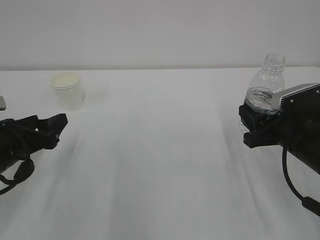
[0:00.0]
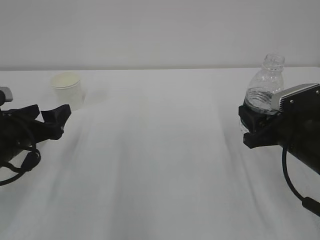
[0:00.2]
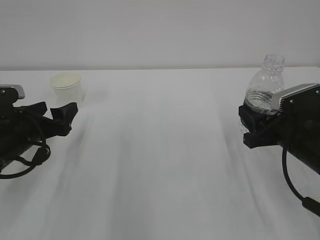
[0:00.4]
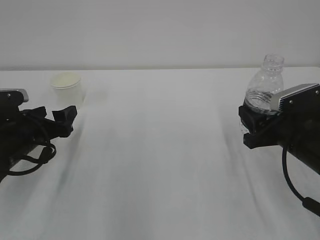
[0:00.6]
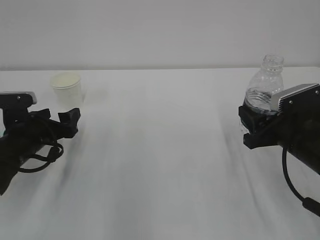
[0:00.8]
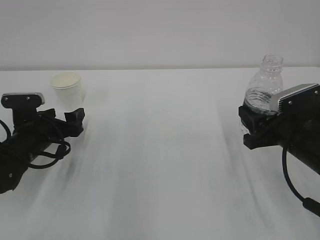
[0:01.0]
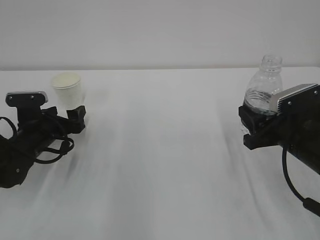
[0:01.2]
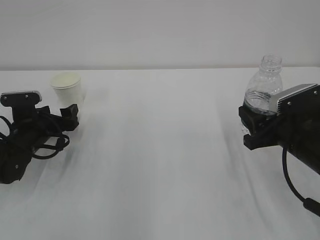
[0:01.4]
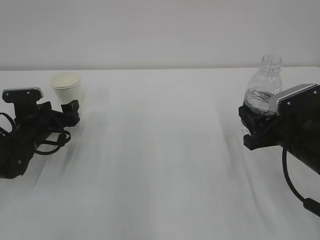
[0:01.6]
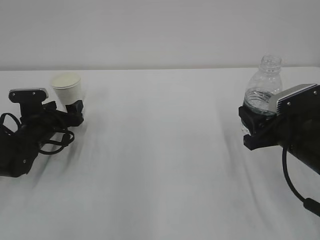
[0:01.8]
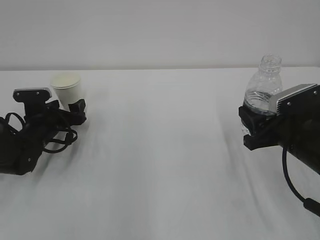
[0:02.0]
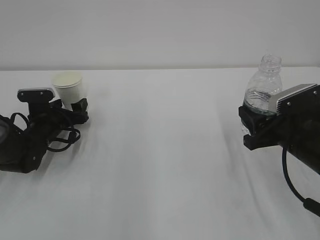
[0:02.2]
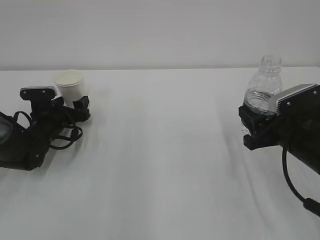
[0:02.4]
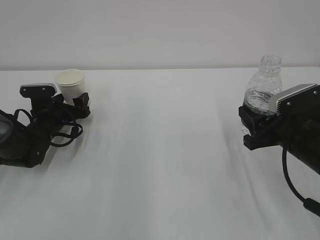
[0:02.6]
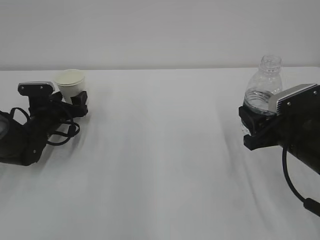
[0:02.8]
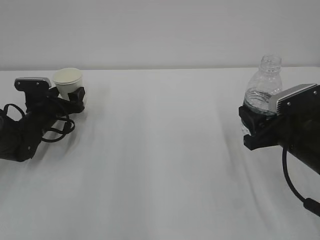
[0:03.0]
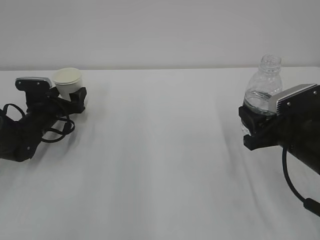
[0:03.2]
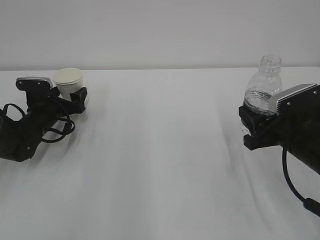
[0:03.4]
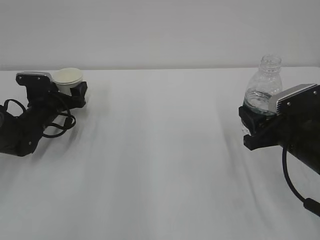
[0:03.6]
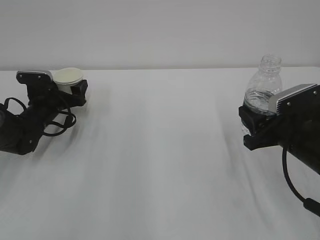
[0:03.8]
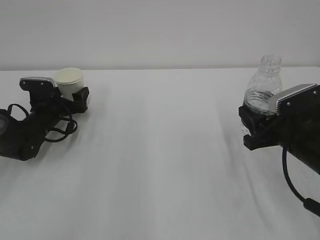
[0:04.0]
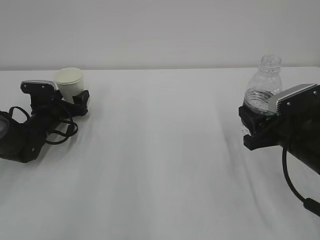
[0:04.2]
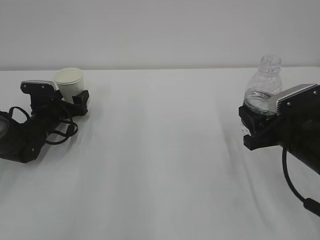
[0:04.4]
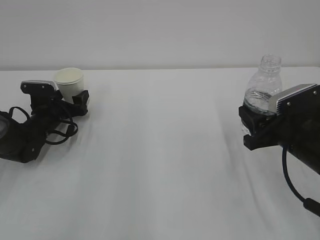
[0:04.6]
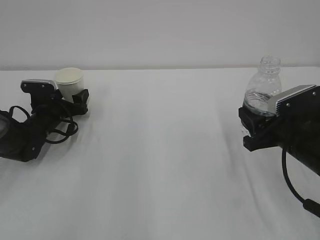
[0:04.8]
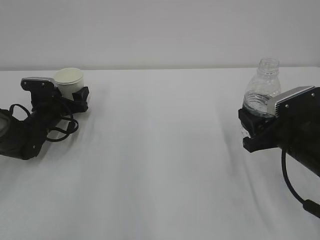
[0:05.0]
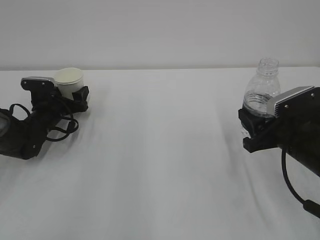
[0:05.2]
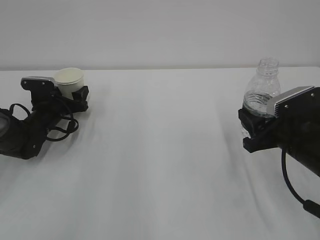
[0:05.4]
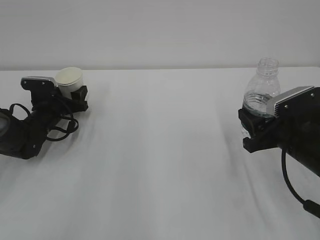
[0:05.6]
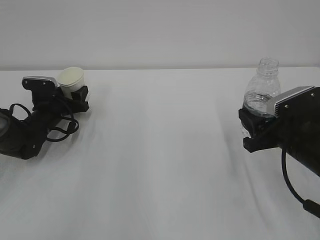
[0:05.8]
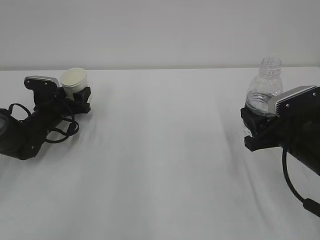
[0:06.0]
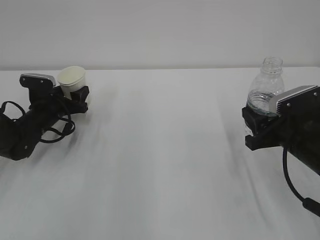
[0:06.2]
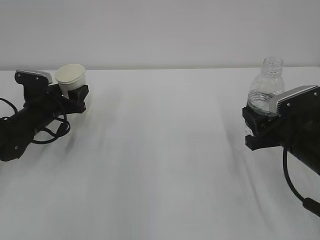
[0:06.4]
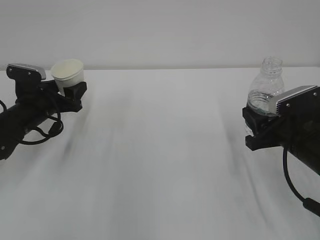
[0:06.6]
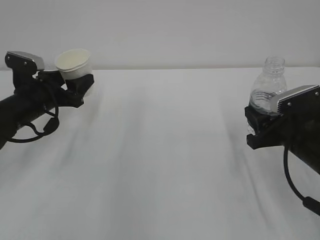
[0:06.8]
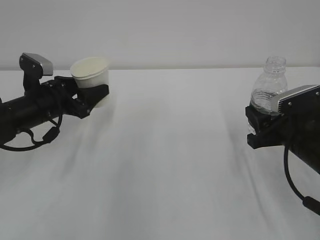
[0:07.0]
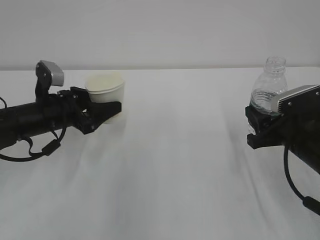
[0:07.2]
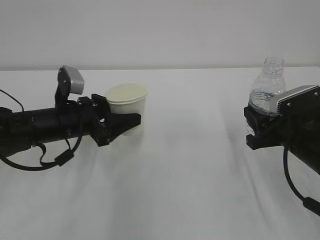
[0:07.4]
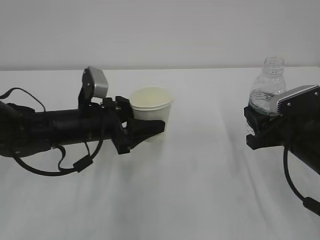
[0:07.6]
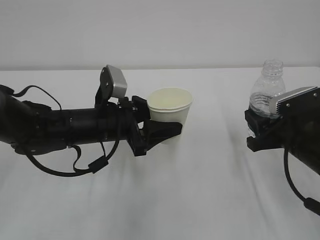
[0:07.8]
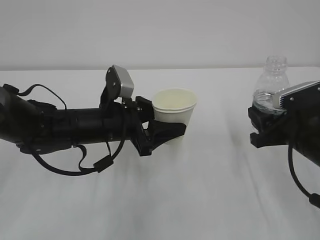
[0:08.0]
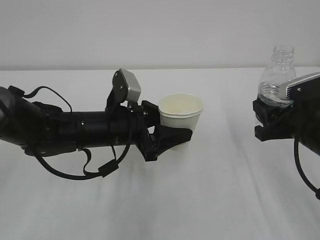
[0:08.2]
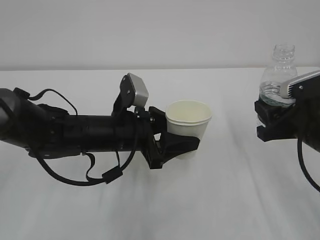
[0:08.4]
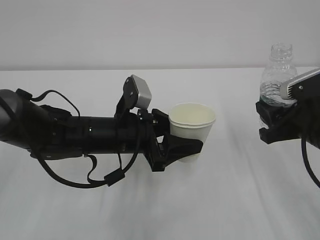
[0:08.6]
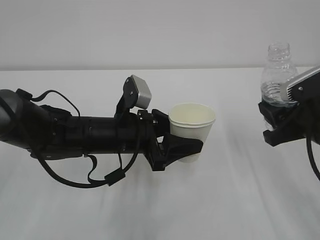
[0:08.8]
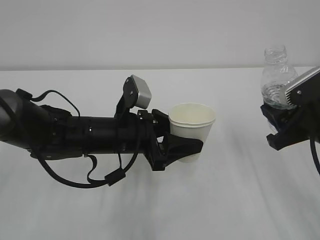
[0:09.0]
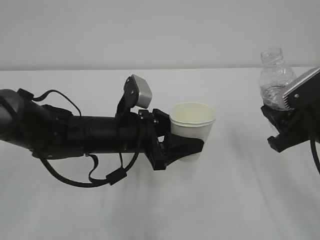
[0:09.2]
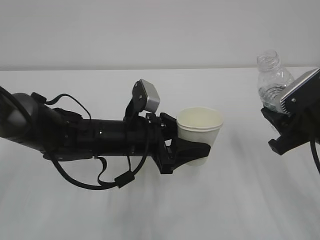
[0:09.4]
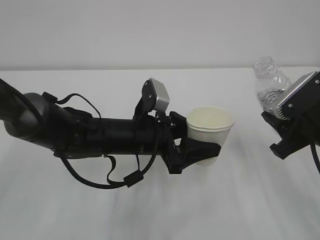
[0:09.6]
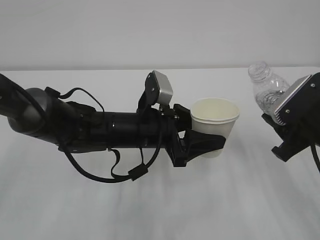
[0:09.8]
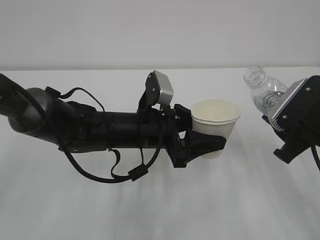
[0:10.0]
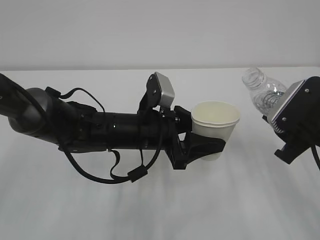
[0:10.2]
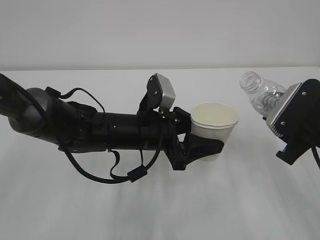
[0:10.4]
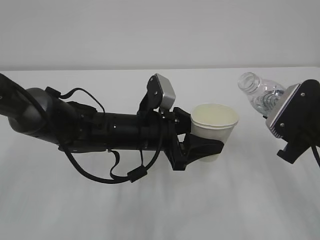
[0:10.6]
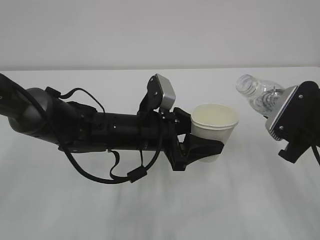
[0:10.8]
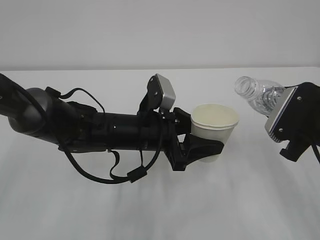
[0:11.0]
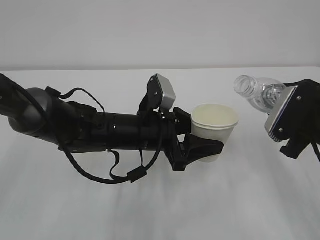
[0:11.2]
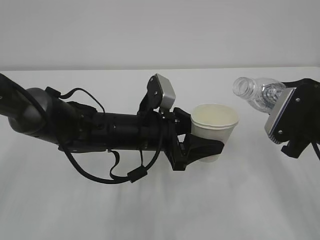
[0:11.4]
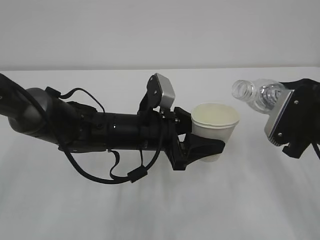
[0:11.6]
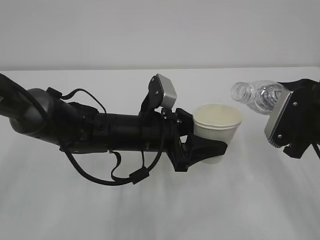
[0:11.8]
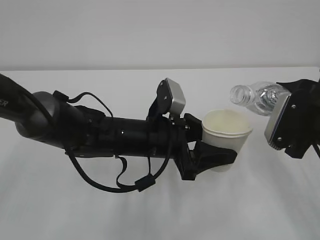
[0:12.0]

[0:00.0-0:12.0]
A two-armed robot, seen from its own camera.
0:00.0 to 0:01.6: The left gripper moves forward and downward, approximately 15 cm.
0:01.6 to 0:03.0: The left gripper moves forward, approximately 5 cm.
0:03.0 to 0:04.4: There are only small adjustments of the grippers.
0:04.4 to 0:06.0: The left gripper closes.
0:06.0 to 0:07.6: The left gripper shifts roughly 20 cm to the right, backward and upward.
0:07.6 to 0:09.0: The left gripper heads to the right, covering approximately 5 cm, while the right gripper moves upward, approximately 5 cm.

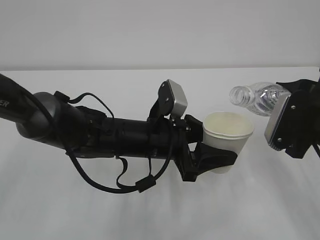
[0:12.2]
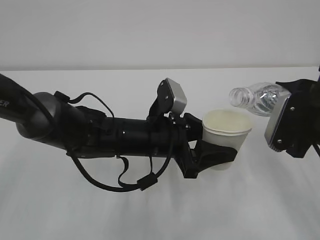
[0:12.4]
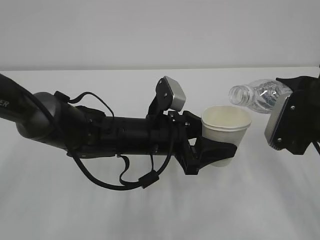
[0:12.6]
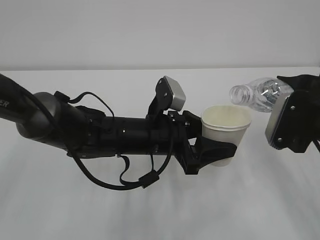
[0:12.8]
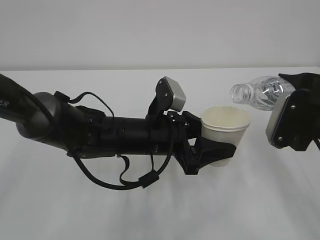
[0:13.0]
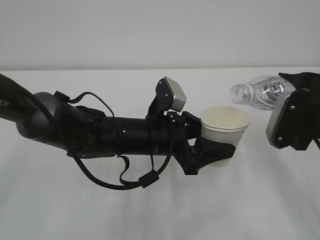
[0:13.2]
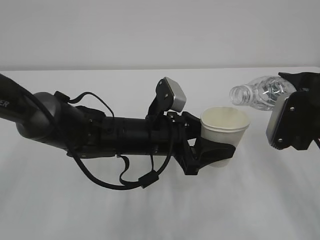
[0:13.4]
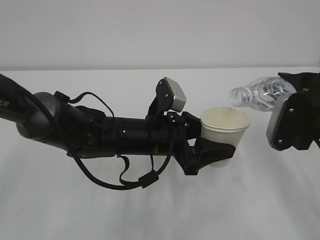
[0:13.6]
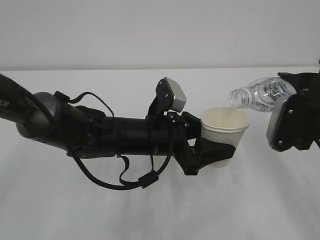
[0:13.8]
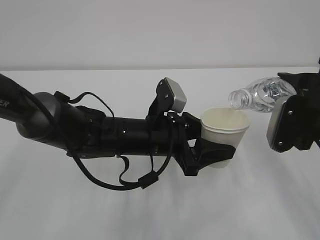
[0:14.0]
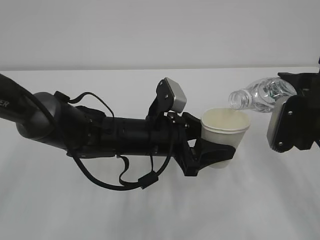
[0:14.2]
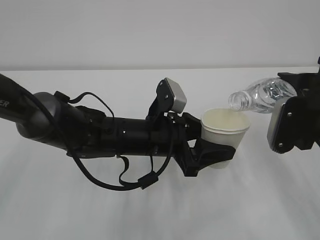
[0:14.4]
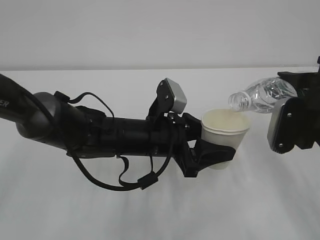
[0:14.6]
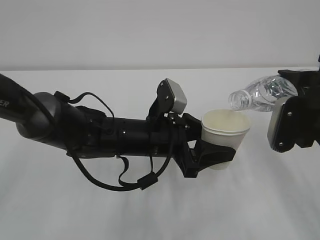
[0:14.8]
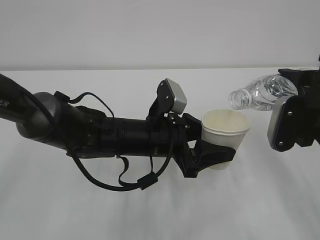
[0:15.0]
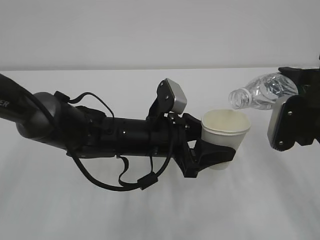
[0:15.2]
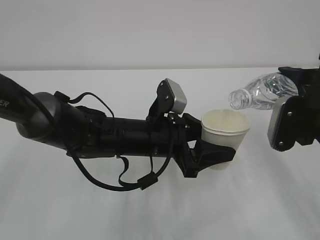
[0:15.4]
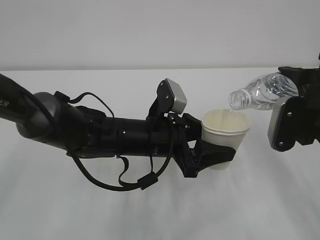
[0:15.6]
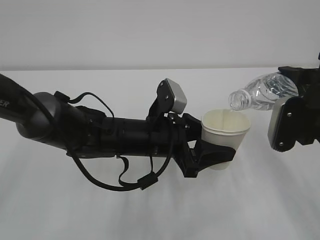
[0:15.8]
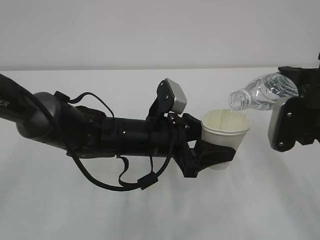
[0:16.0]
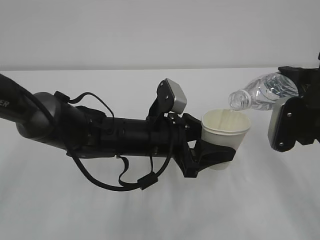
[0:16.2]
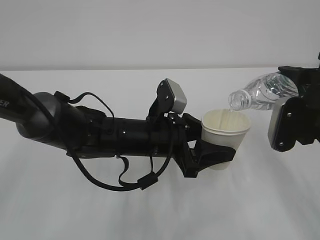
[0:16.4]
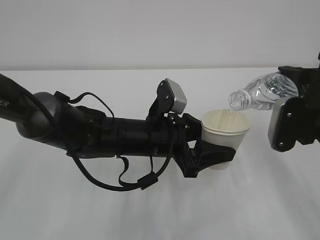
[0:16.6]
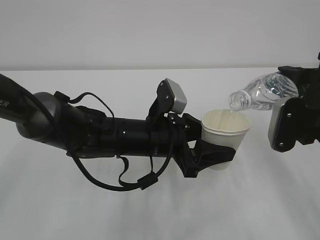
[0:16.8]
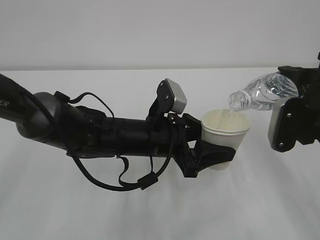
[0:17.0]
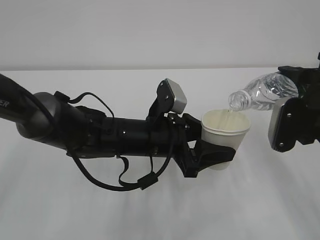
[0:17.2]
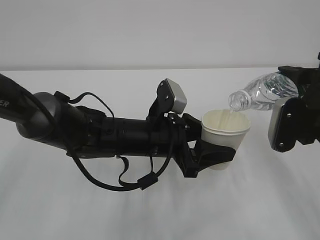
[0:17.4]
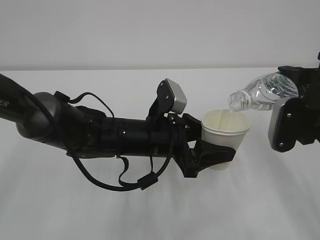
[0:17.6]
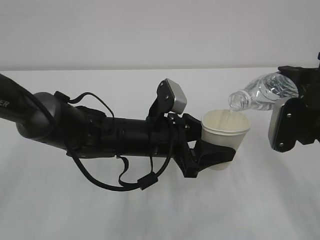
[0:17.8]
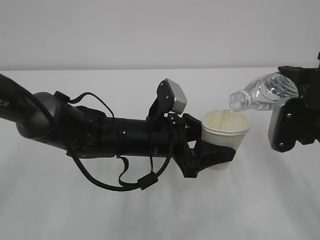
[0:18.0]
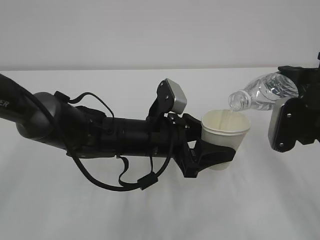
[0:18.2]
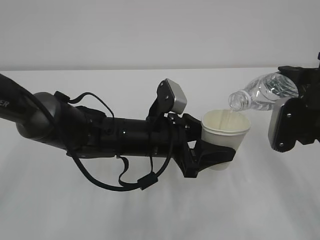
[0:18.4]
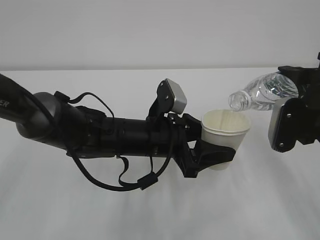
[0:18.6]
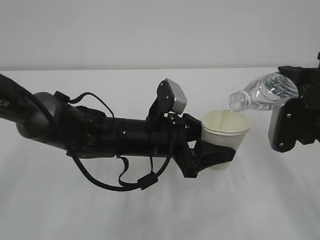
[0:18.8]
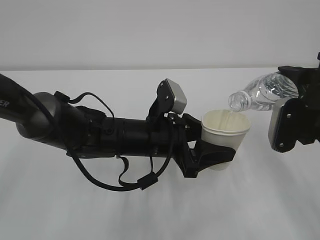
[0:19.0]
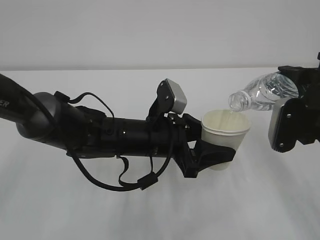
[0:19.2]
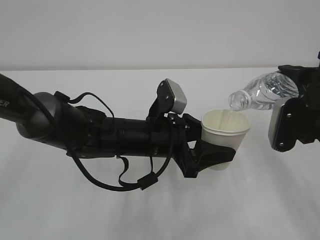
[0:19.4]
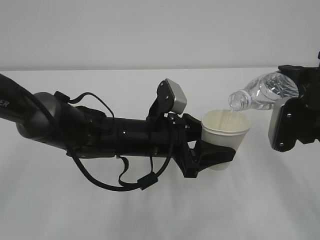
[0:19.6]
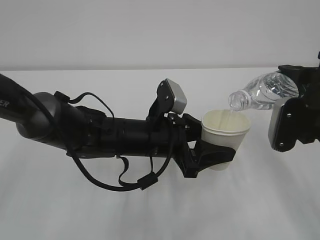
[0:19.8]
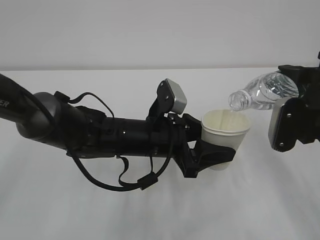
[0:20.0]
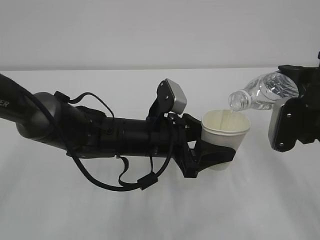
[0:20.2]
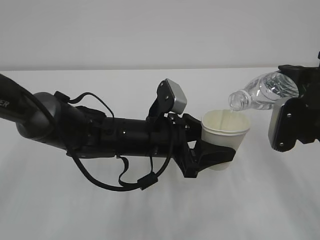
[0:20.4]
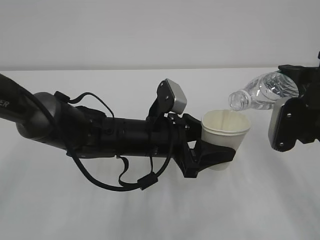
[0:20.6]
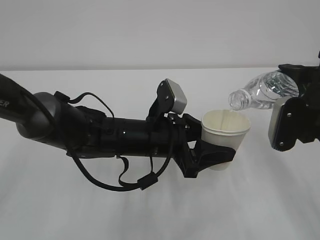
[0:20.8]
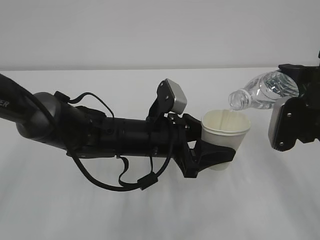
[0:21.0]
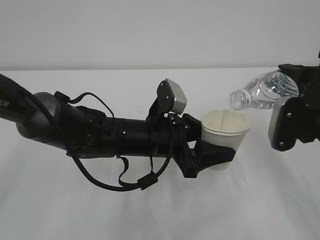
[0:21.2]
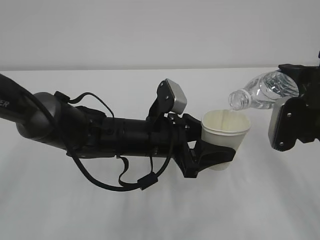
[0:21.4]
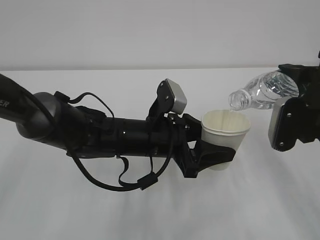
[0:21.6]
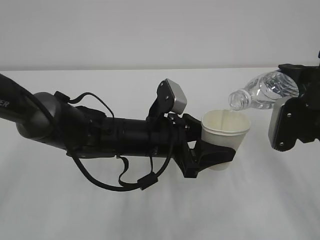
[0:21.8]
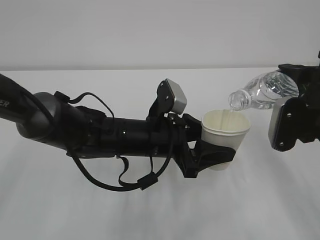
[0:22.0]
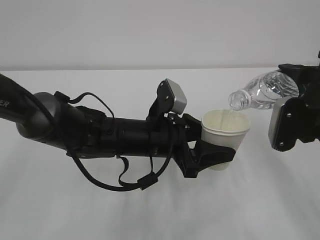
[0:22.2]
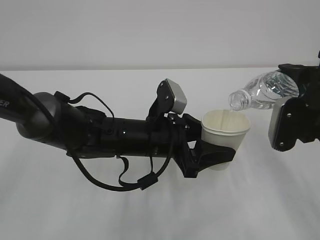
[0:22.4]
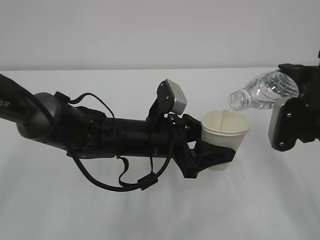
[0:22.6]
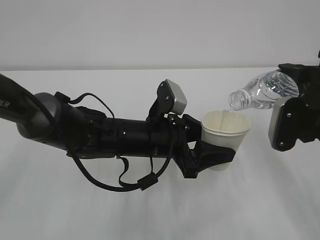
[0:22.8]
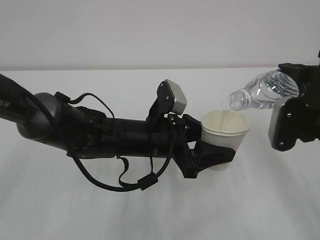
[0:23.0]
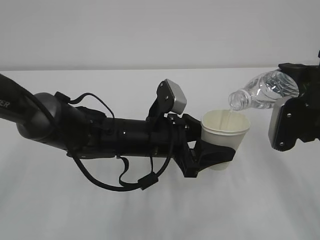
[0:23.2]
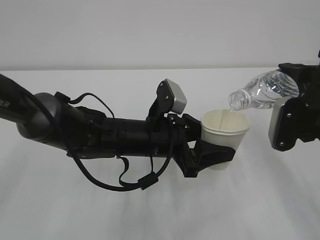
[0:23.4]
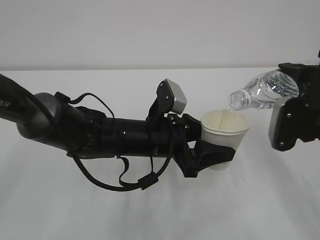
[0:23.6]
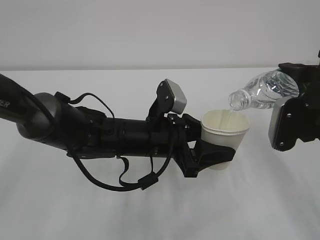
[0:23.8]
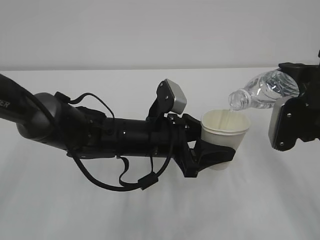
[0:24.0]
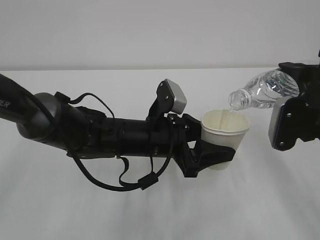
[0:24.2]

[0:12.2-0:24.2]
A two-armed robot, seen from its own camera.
0:12.2 to 0:15.2: The grippers make only small movements.
0:15.2 to 0:24.2: Neither gripper changes place.
